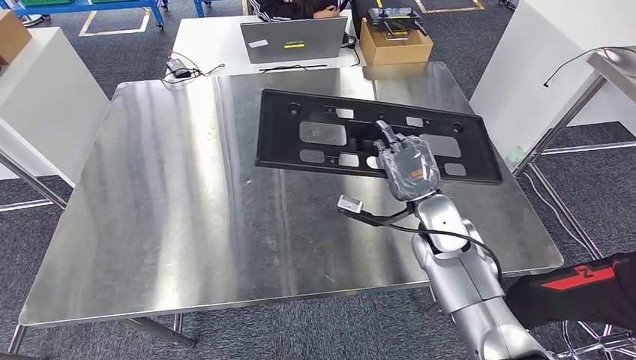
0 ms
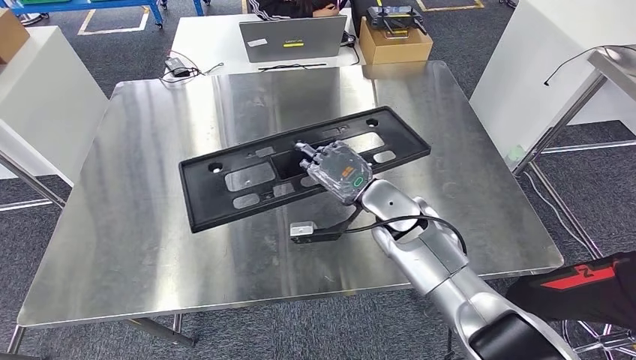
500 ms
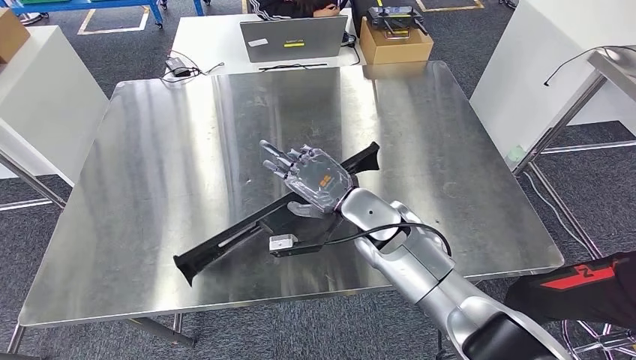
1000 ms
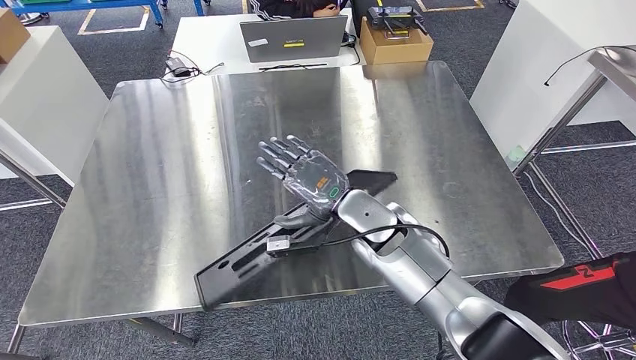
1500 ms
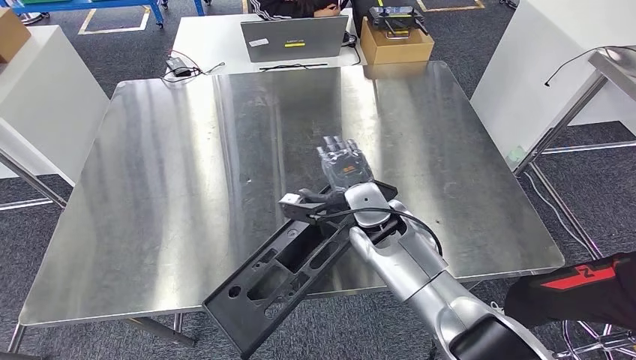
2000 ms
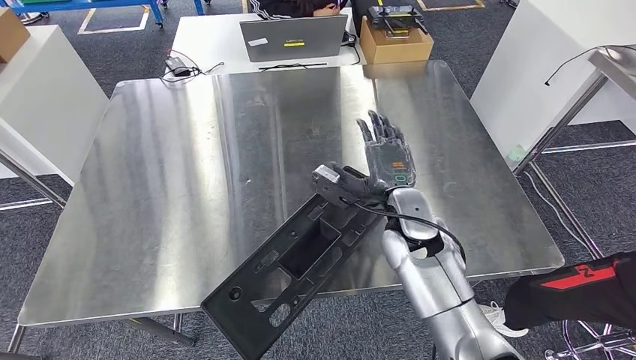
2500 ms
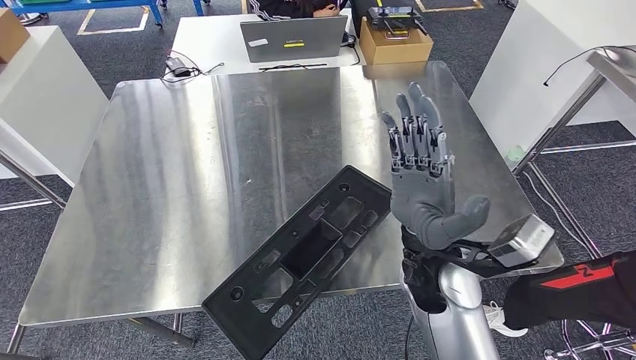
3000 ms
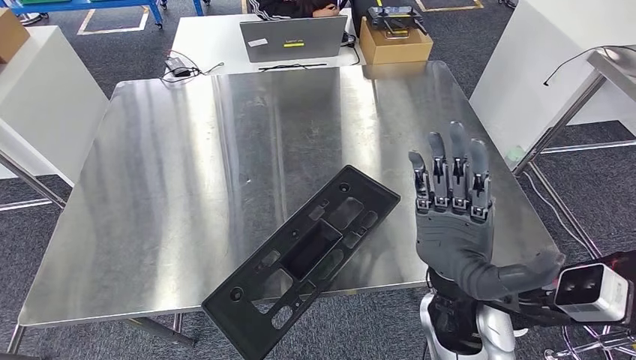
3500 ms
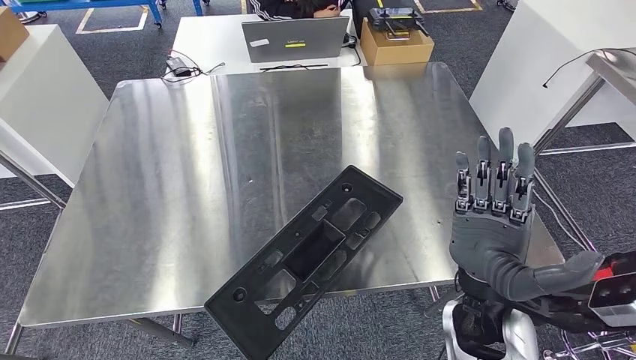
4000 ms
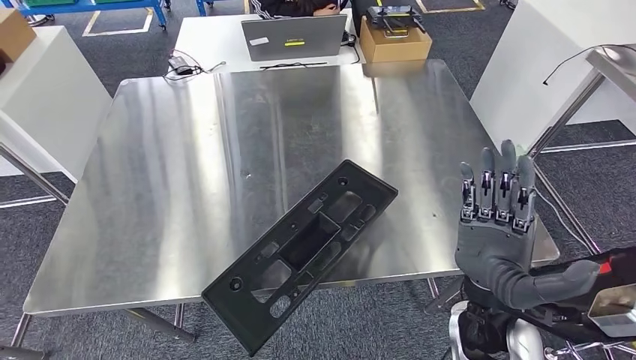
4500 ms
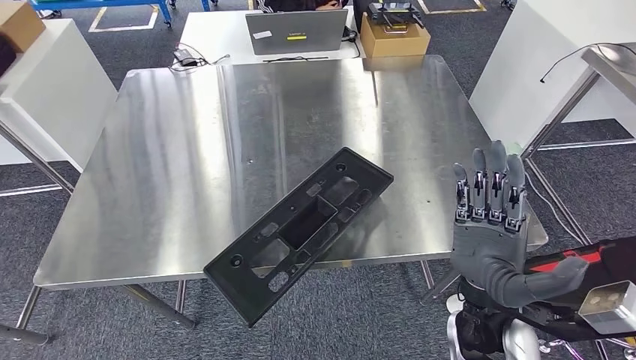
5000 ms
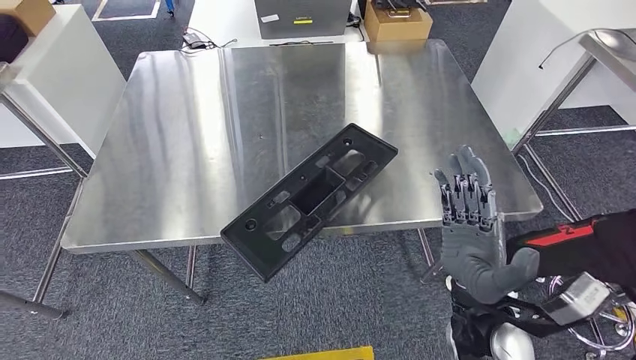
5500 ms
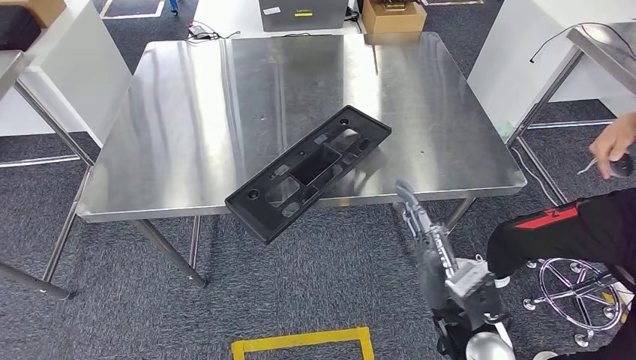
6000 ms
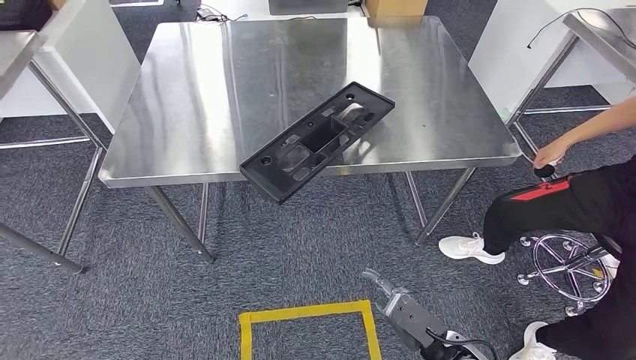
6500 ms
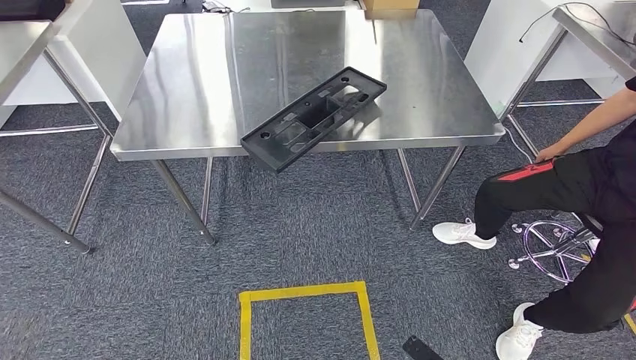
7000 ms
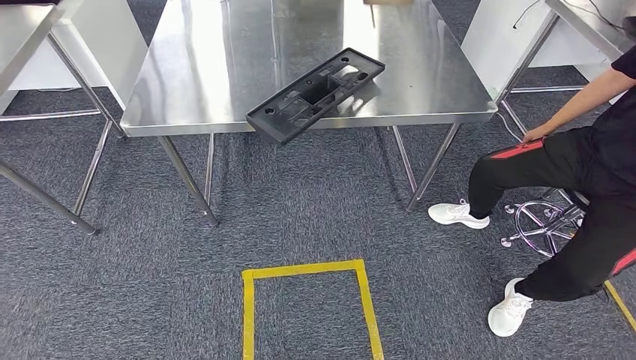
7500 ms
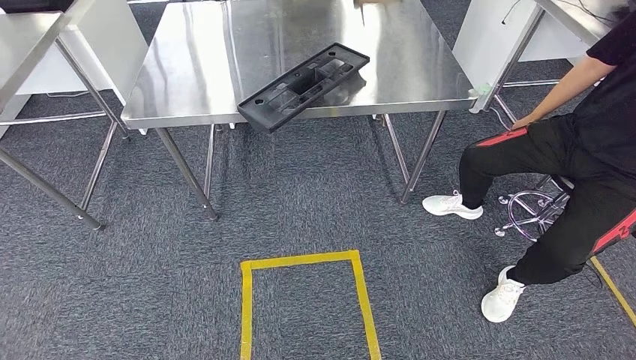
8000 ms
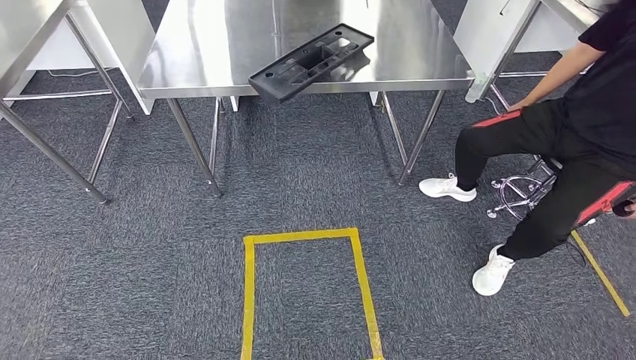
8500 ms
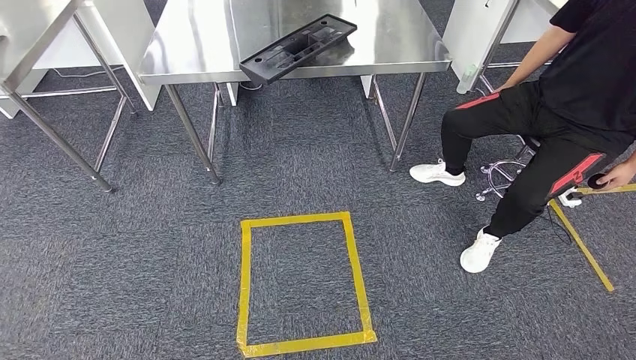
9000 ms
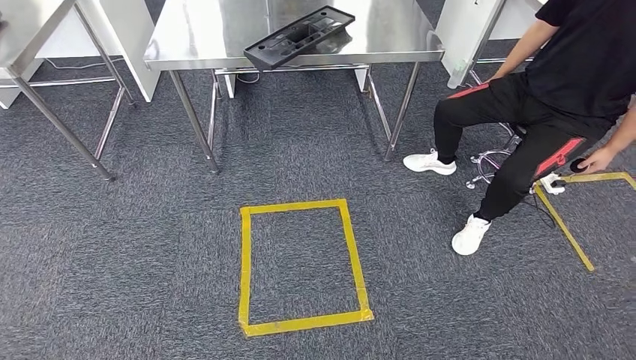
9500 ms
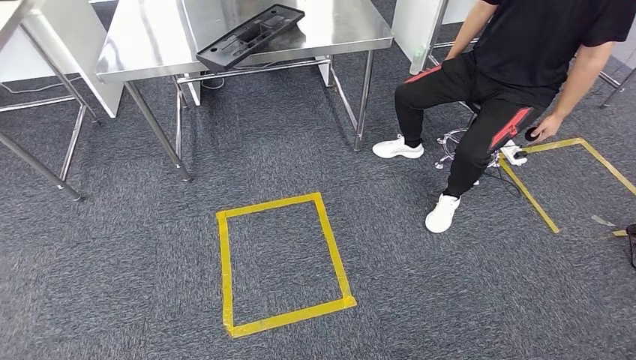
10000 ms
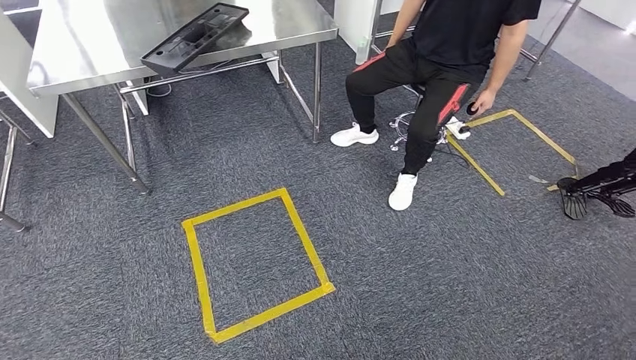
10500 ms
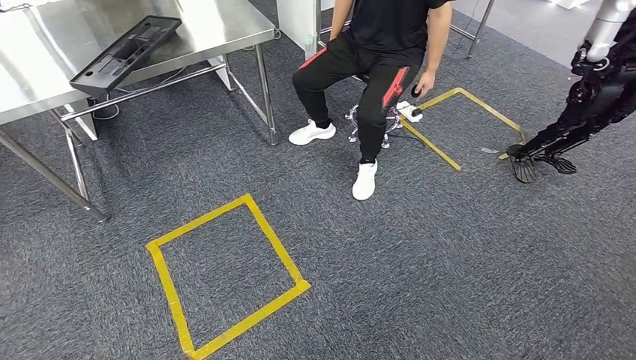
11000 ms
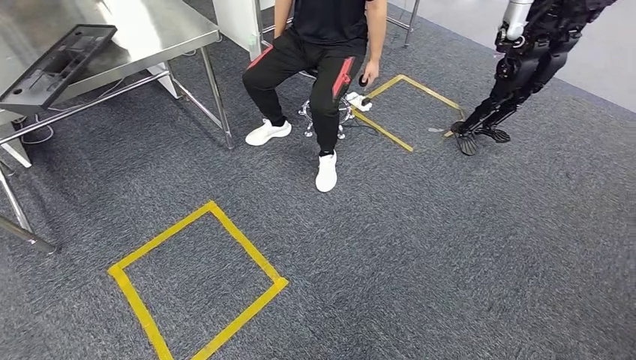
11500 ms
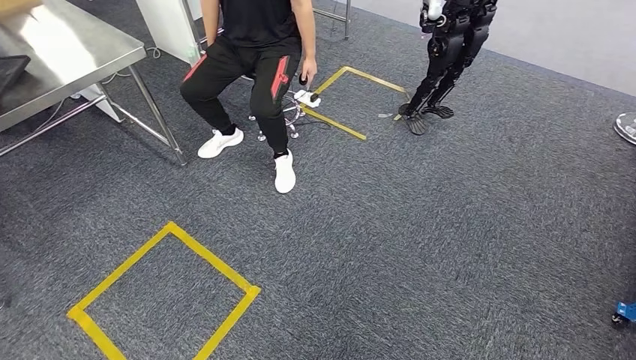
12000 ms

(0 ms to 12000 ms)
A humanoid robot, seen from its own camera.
Step, 0 ms - 4500 ms: Insert the large material into the corresponding slot on the workbench.
2000 ms - 4000 ms: The right hand shifts approximately 20 cm backward and to the right.

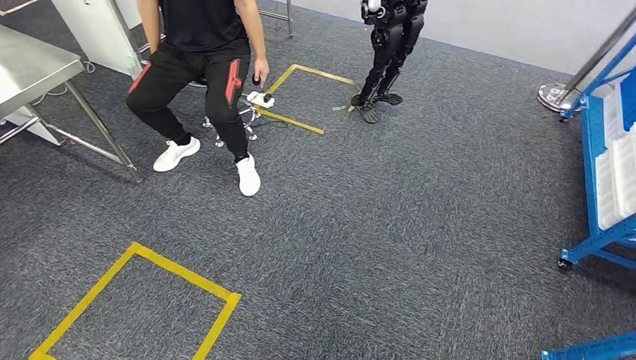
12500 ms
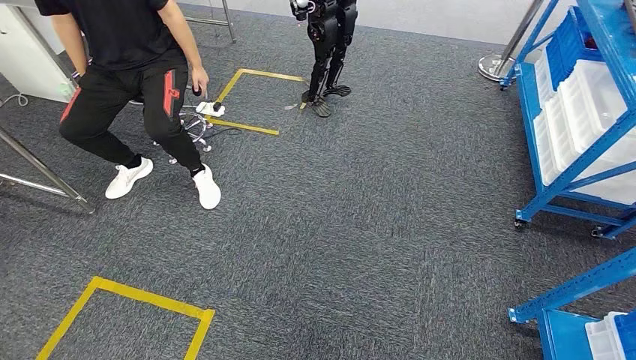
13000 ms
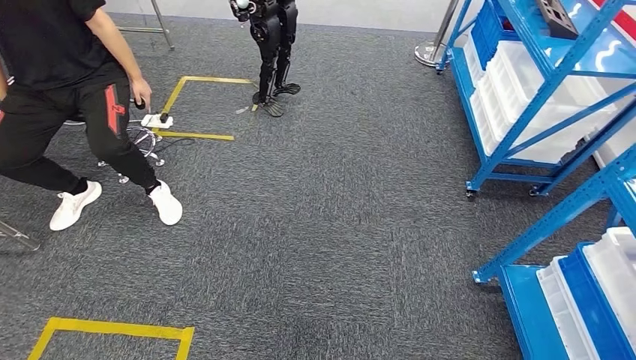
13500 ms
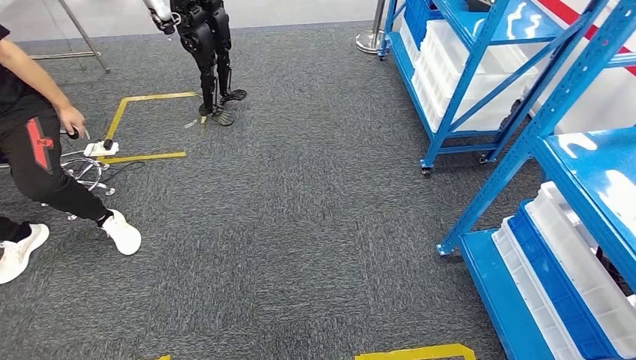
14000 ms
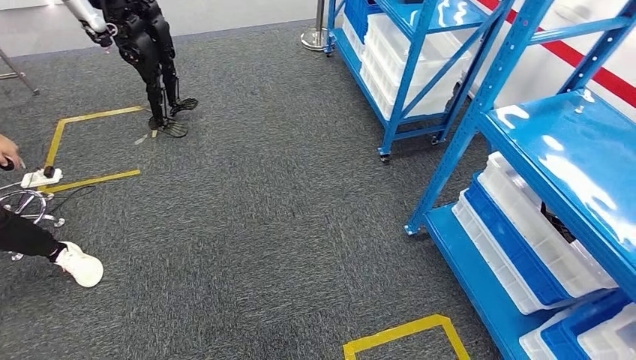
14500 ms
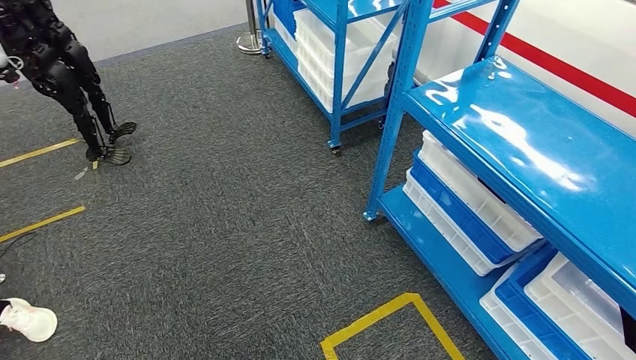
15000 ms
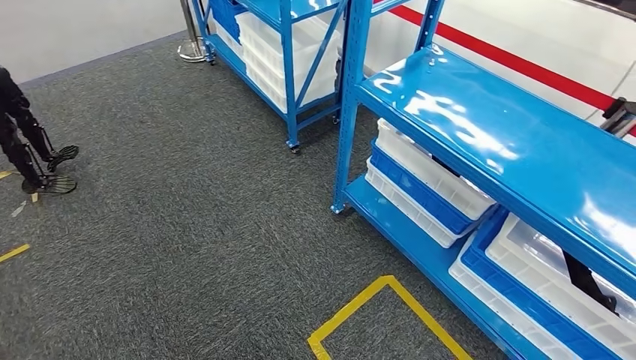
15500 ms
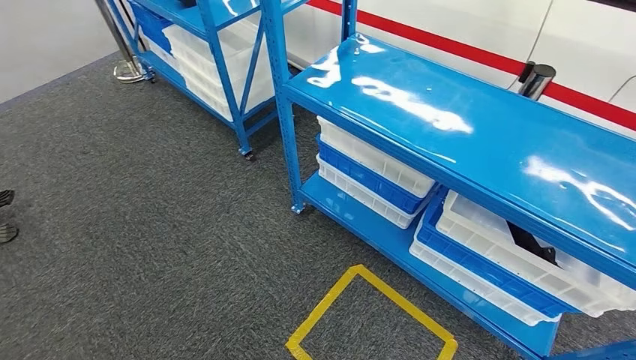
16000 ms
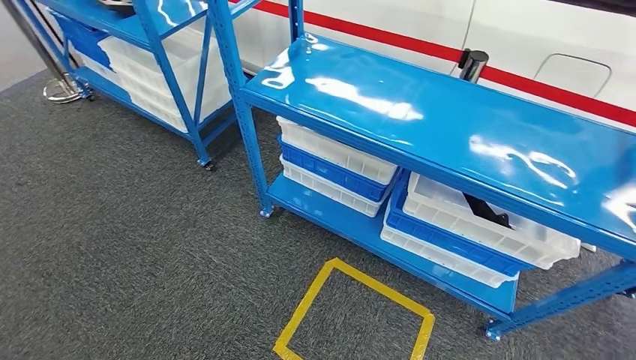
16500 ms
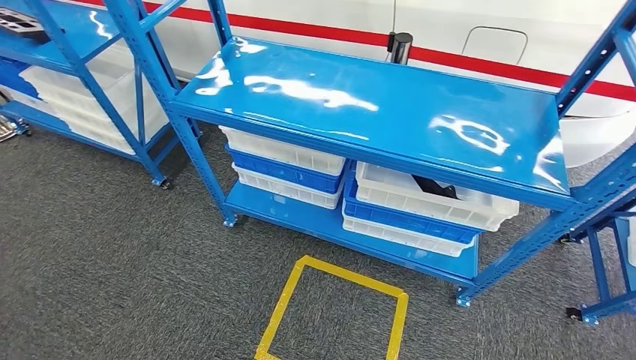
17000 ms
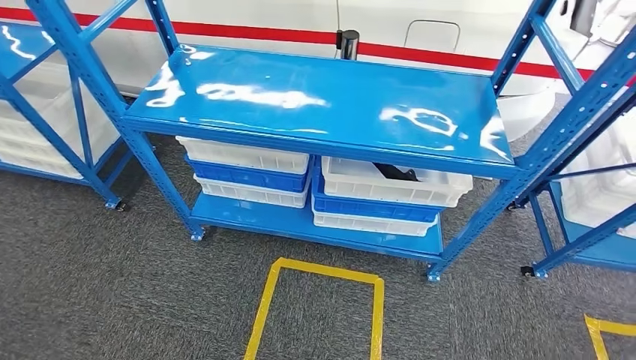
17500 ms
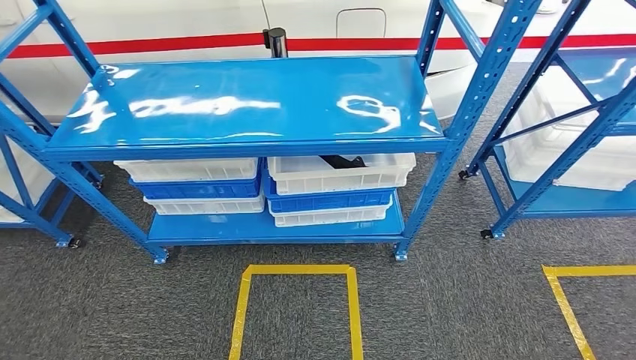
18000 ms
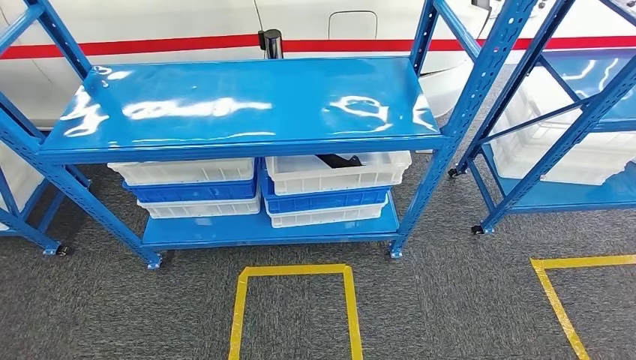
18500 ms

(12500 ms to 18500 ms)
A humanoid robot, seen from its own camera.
Step, 12500 ms - 18000 ms: Move to the initial position of the shelf.
